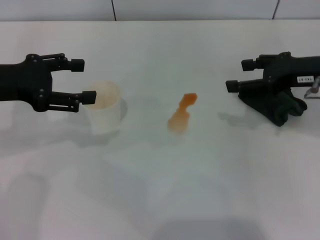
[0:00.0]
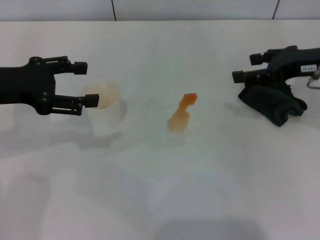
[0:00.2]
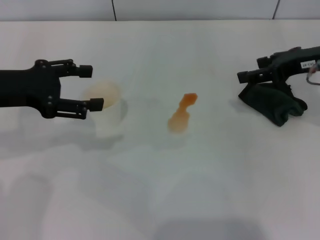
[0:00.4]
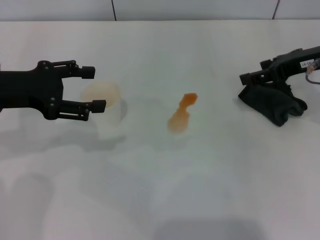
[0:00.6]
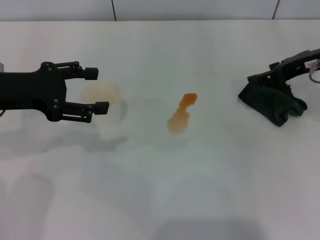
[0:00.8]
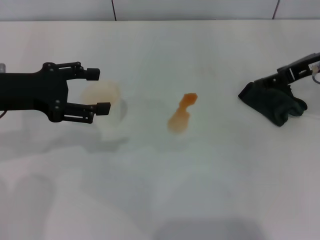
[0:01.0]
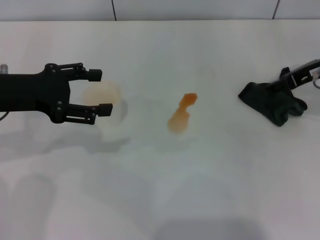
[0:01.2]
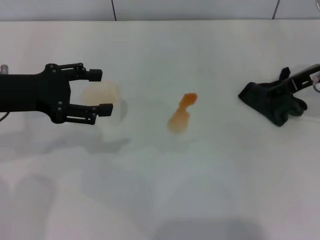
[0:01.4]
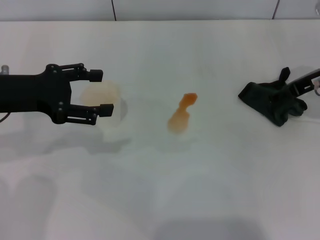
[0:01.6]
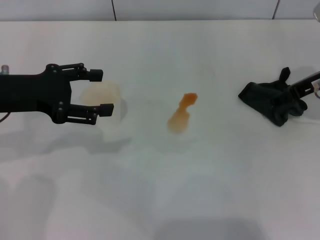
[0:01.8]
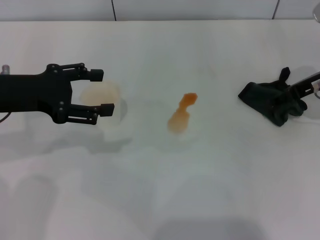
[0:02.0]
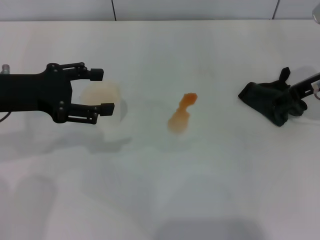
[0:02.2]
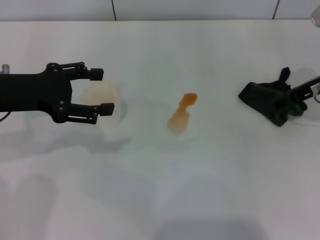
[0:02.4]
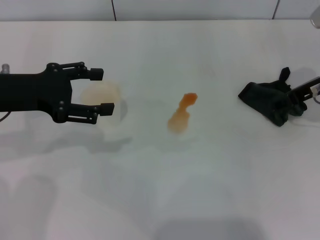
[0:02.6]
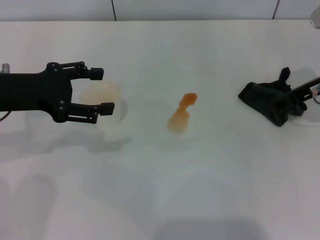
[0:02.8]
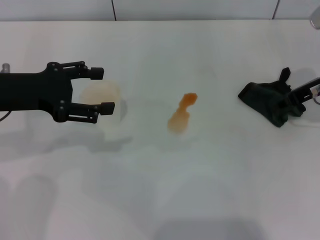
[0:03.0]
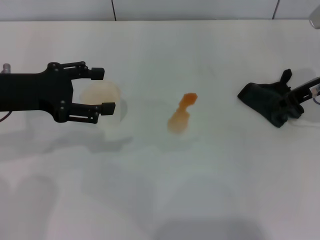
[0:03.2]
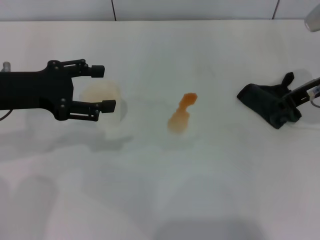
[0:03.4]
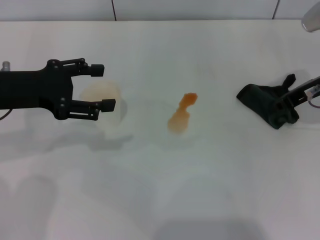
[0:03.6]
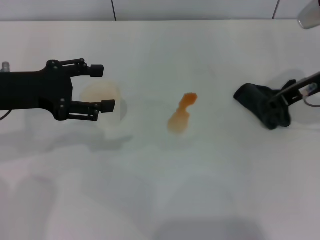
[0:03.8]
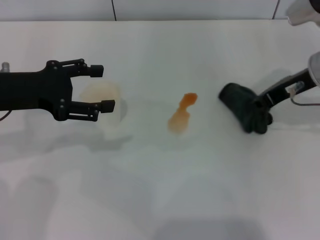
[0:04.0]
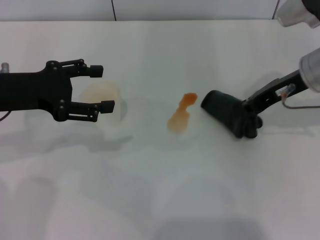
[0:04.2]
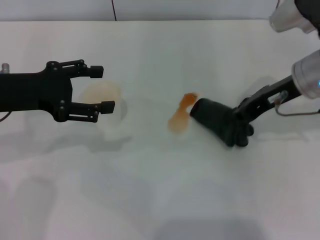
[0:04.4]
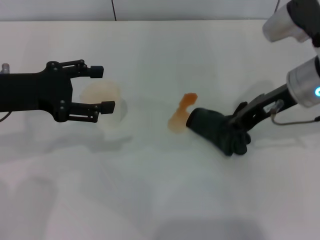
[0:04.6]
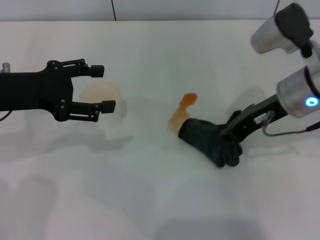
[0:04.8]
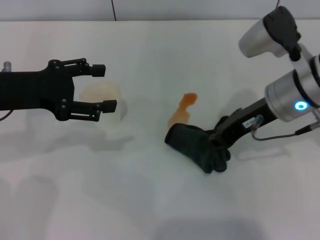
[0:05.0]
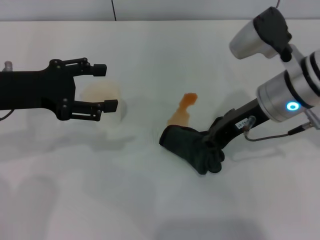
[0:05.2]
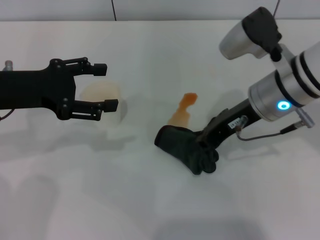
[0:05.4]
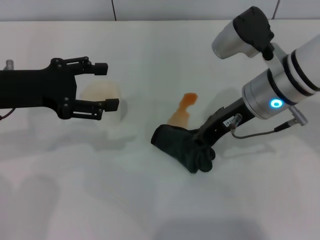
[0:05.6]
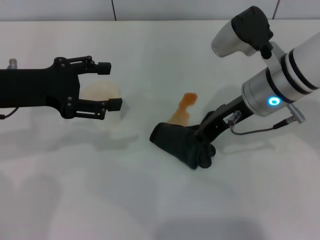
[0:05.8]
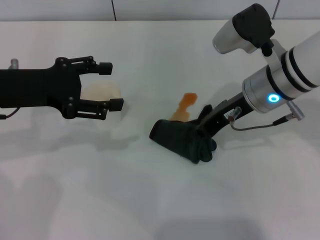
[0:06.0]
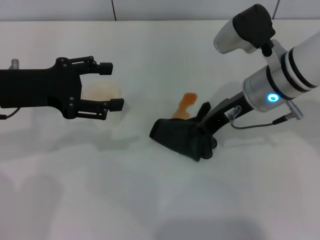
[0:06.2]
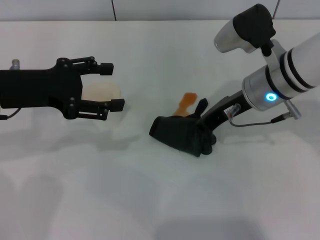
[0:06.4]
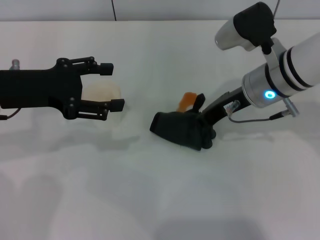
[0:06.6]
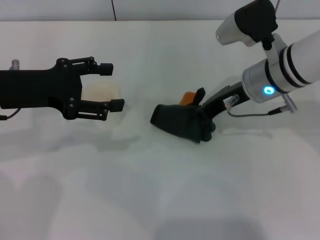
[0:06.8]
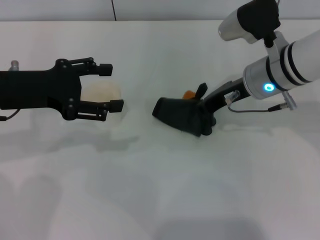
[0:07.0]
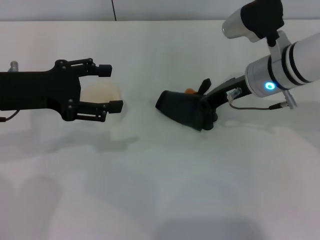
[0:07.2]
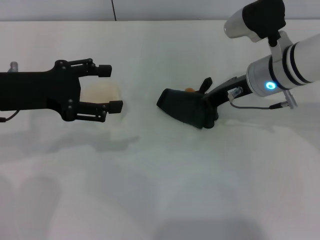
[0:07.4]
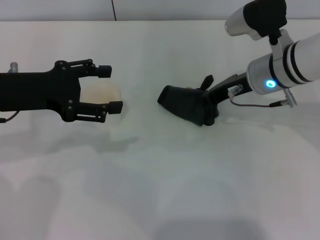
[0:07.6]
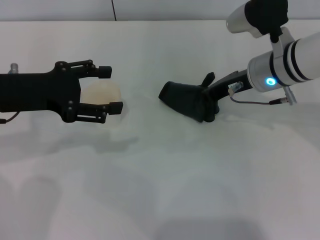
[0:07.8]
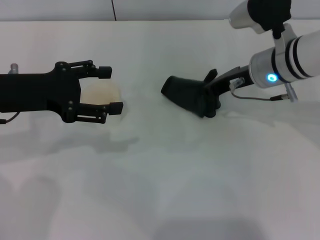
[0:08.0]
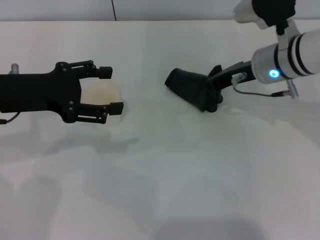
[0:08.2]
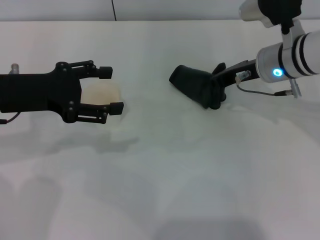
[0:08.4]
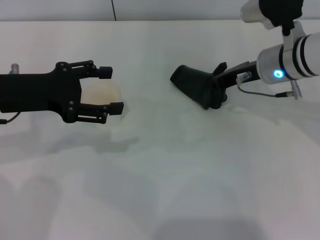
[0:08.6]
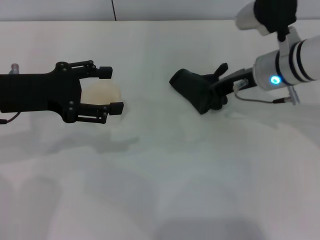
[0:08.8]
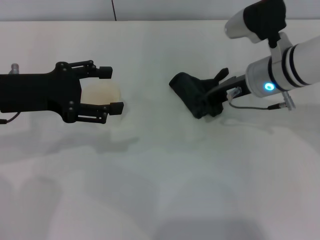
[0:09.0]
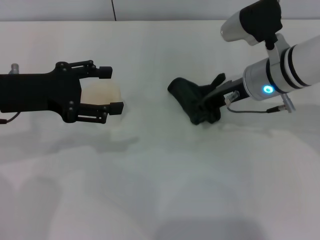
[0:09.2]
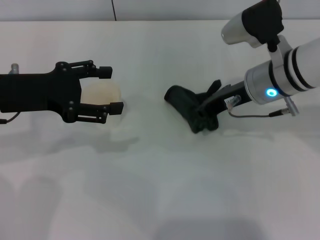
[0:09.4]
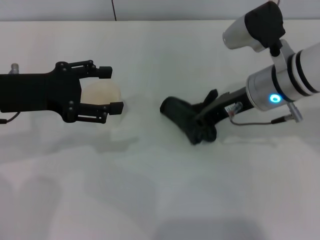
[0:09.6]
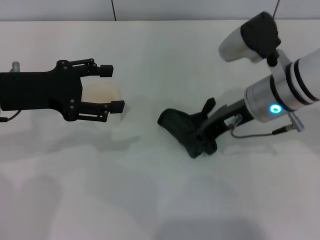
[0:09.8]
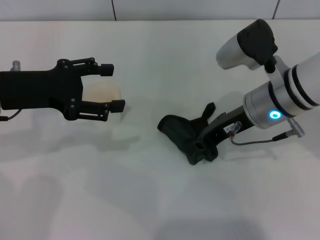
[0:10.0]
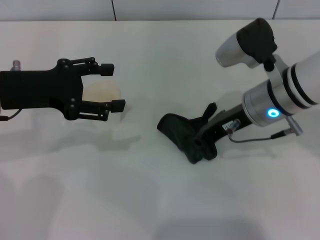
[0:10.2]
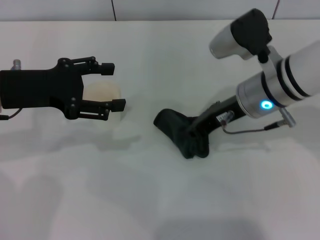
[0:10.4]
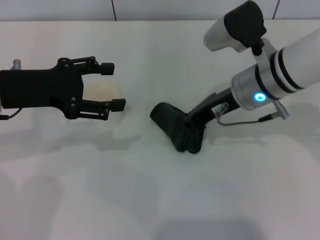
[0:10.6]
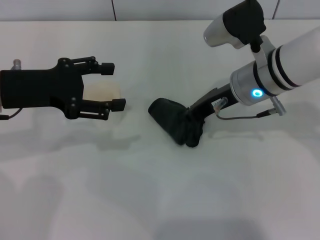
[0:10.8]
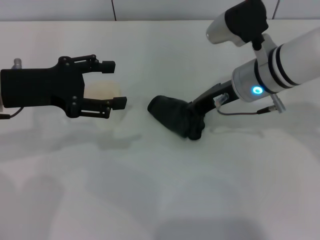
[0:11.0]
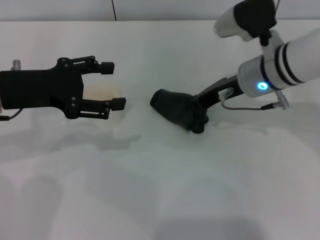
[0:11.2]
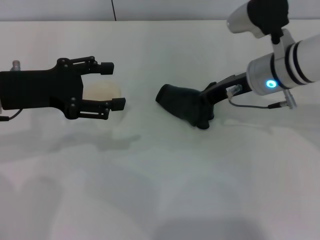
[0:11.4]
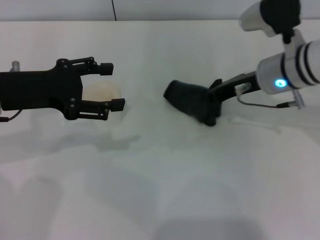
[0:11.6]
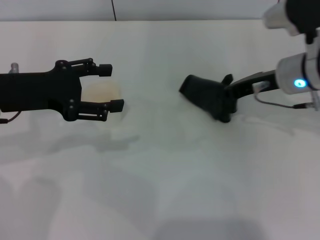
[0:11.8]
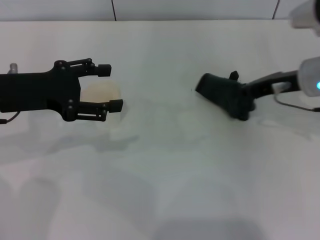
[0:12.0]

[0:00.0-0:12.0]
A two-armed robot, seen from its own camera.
Step, 0:00.0 to 0:03.6: Grasp the rag with the right gripper.
0:01.6 to 0:03.0: The right gripper closes up.
0:03.0 to 0:04.4: The right gripper goes roughly 5 cm to the left, and closes its fingers.
0:04.4 to 0:06.0: The right gripper heads to the left, covering some 5 cm.
0:06.0 to 0:07.6: The grippers stay close to where they were, moving slightly.
0:07.6 to 0:10.4: The grippers make only small movements.
0:10.4 to 0:12.0: The right gripper heads to the right, covering approximately 10 cm.

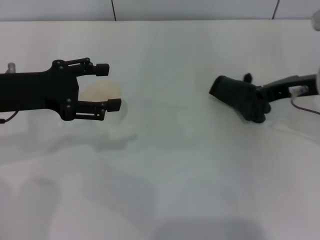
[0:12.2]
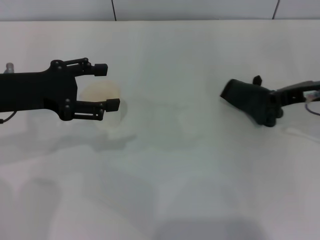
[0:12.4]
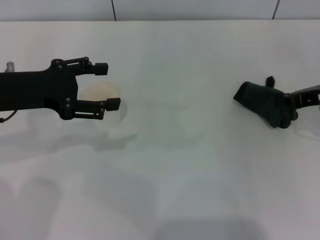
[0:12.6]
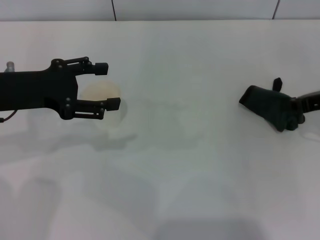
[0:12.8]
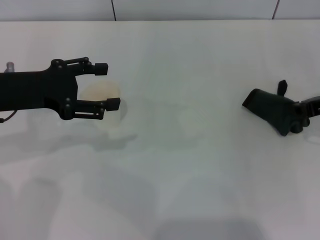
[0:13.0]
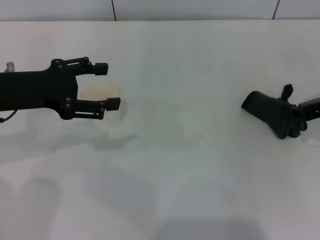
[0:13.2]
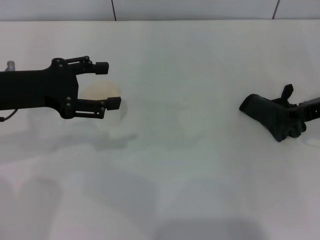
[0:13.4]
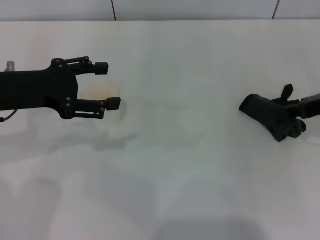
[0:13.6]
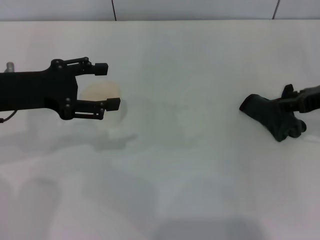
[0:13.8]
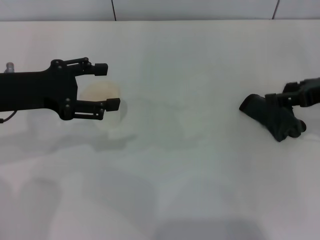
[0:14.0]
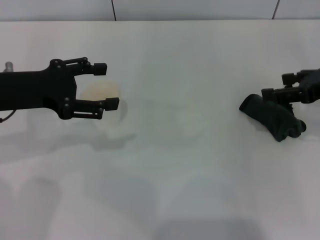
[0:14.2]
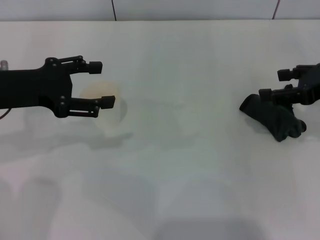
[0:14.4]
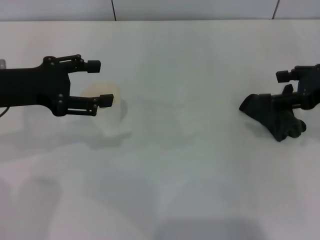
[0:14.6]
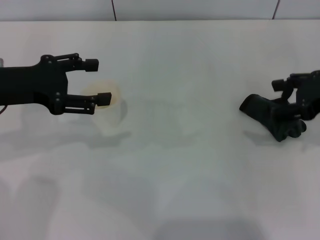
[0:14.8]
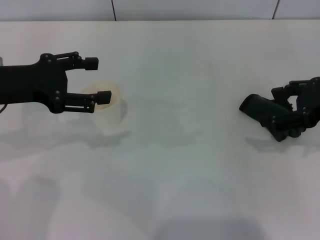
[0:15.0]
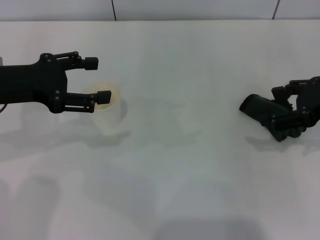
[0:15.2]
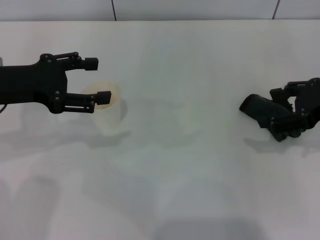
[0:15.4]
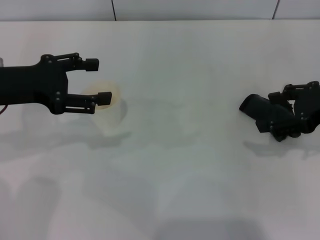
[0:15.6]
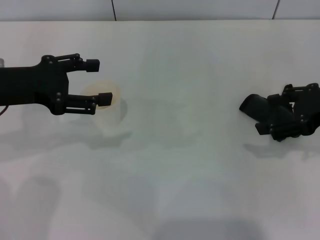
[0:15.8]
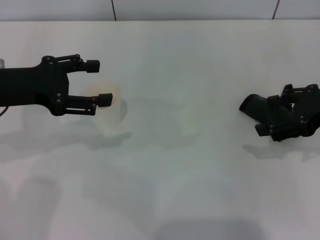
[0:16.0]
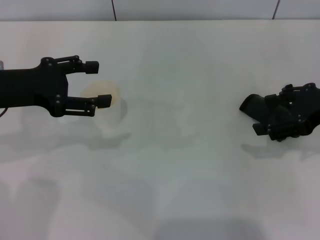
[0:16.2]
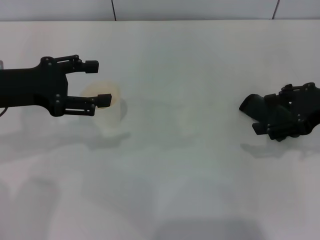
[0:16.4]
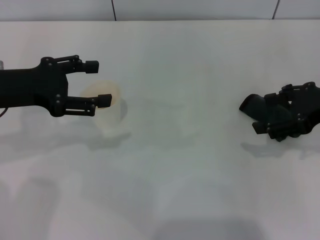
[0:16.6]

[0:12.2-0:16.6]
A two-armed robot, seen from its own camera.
Step, 0:13.0 to 0:14.4: Place the rag on the table with the right gripper.
0:12.2 to 0:13.6: The right gripper heads to the right, covering roughly 5 cm.
0:13.6 to 0:15.2: The right gripper opens its fingers.
0:15.2 to 0:16.6: Both grippers stay about where they are.
